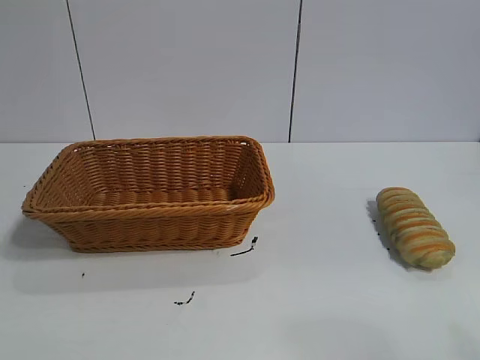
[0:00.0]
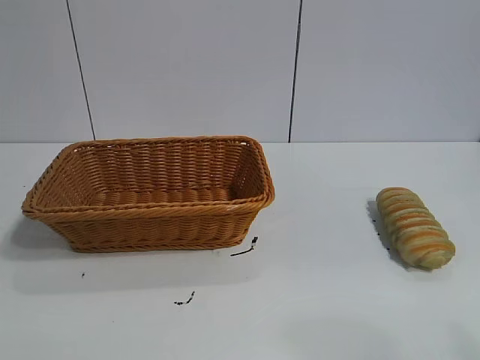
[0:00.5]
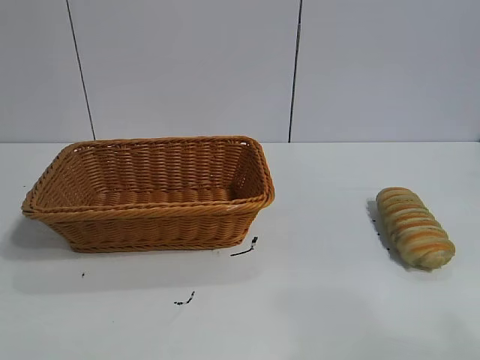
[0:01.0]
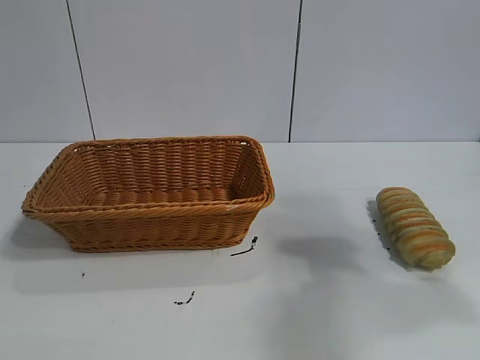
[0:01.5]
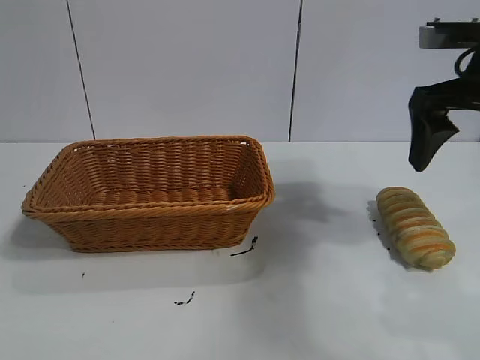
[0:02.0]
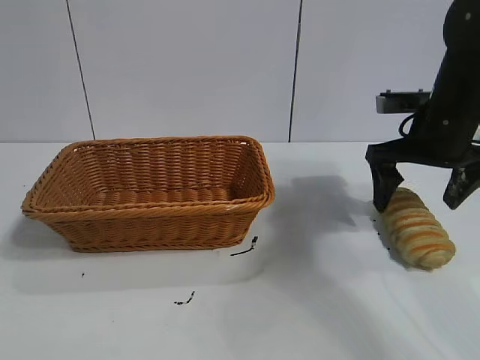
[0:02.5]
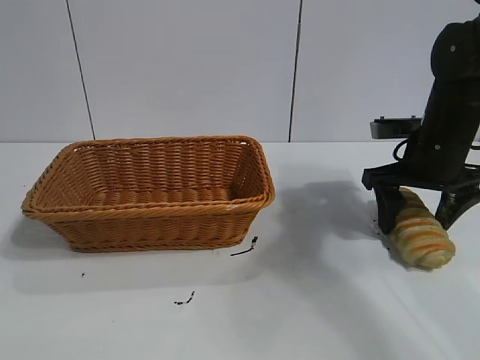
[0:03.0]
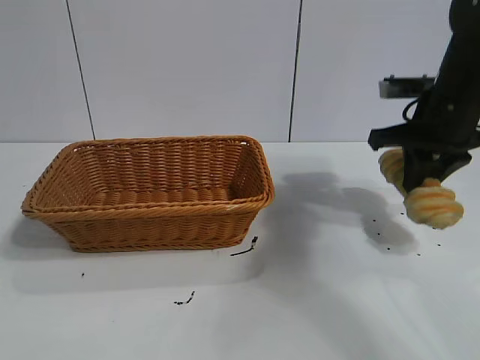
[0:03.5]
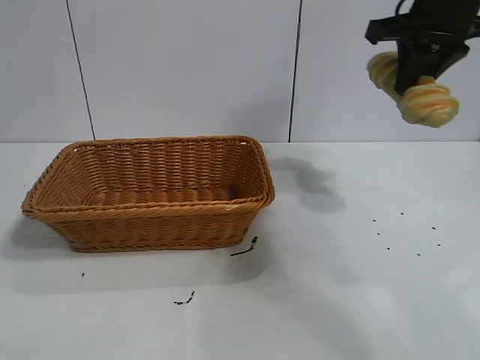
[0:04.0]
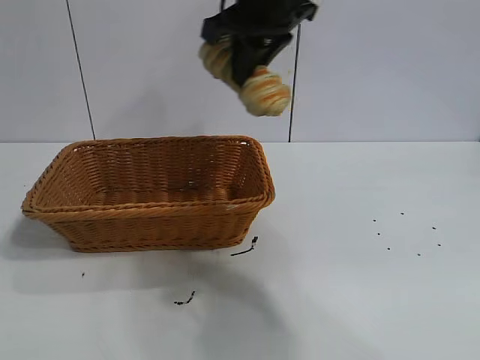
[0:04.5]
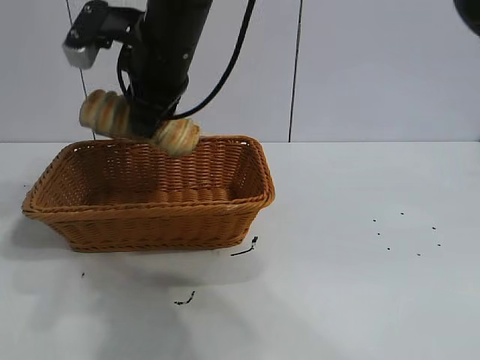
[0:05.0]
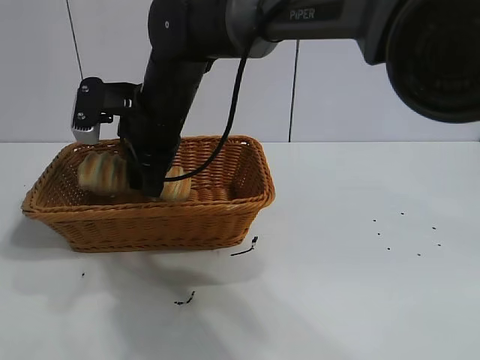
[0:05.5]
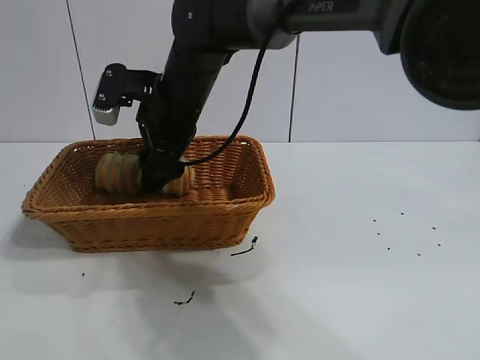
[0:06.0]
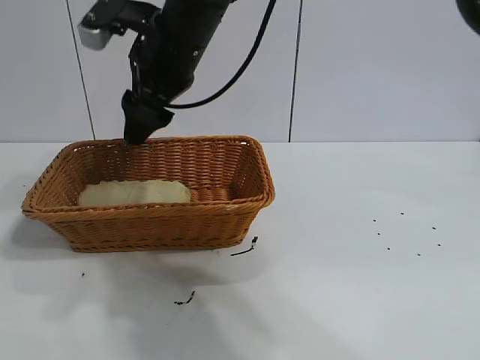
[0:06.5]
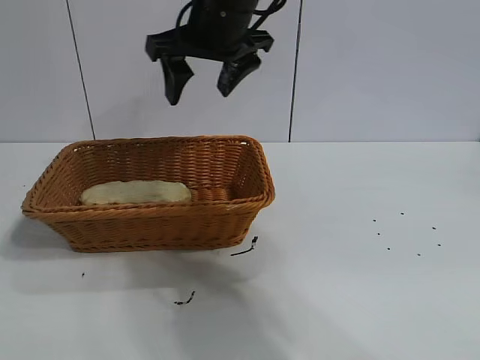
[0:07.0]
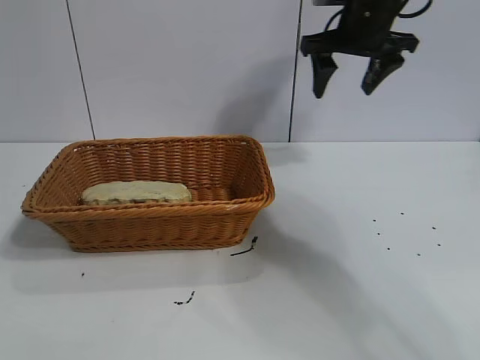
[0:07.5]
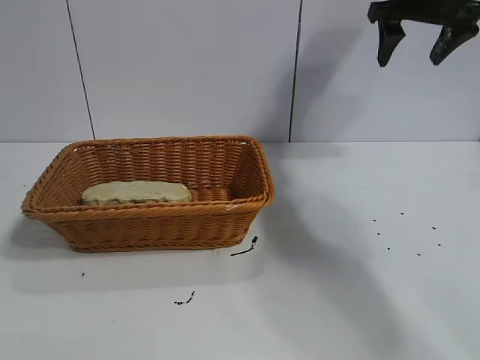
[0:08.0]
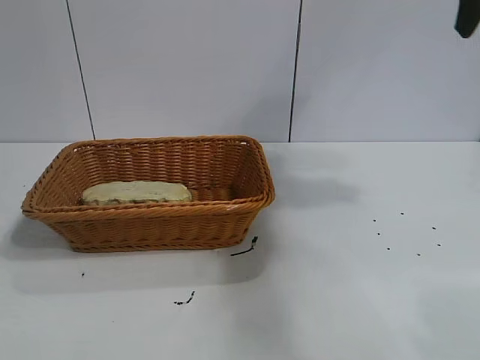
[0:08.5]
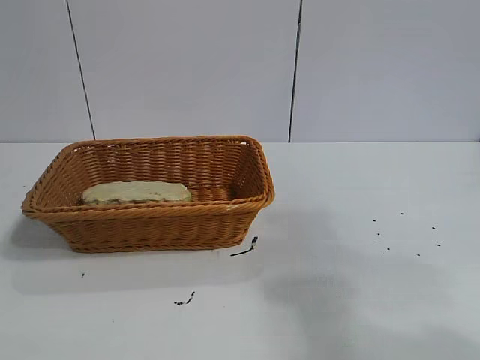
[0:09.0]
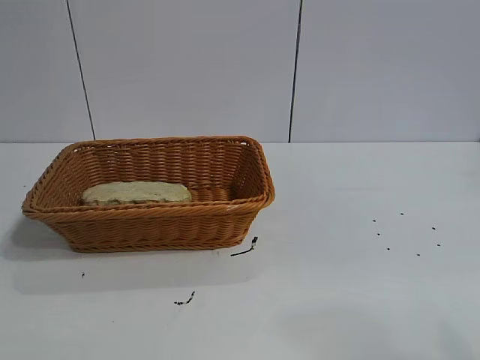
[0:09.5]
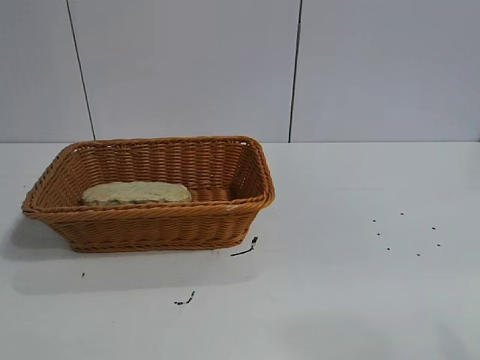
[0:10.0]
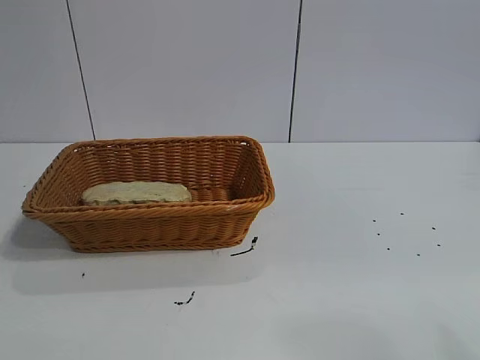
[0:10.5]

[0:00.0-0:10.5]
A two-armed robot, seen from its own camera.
Task of the whole recording: pick up the long bread and put it into the basket.
Step, 0:02.0 to 0:03.0: Grasp the long bread with right gripper.
Step, 0:03.5 to 0:06.5: Place the long bread in the basket with right gripper.

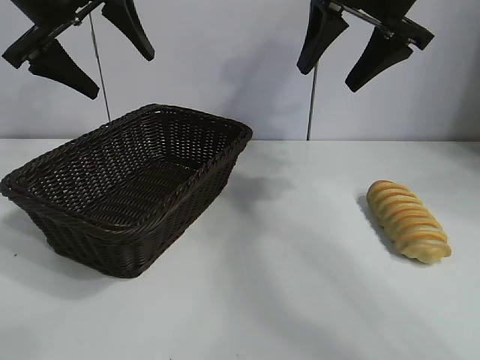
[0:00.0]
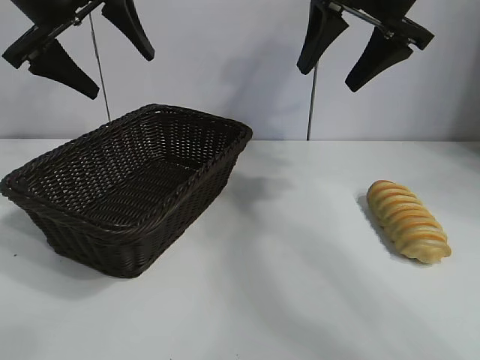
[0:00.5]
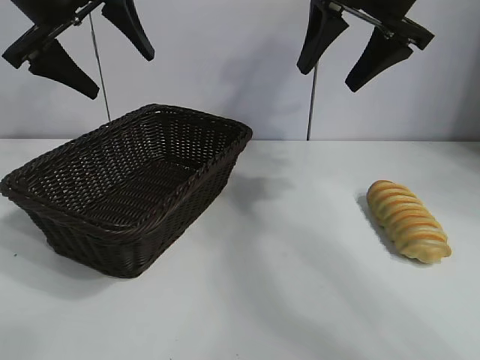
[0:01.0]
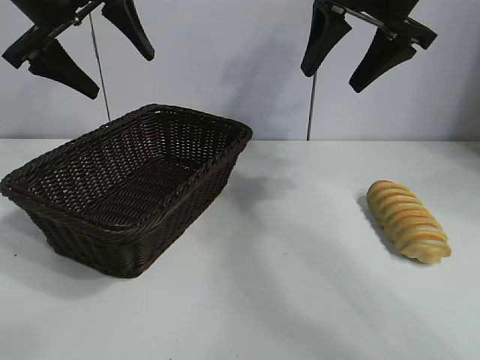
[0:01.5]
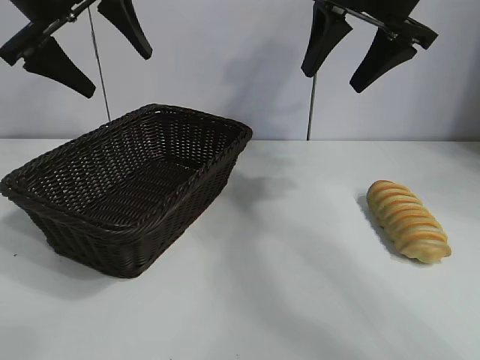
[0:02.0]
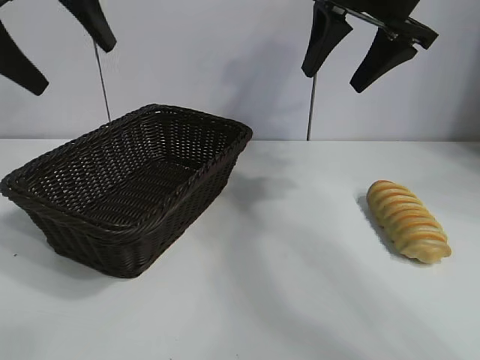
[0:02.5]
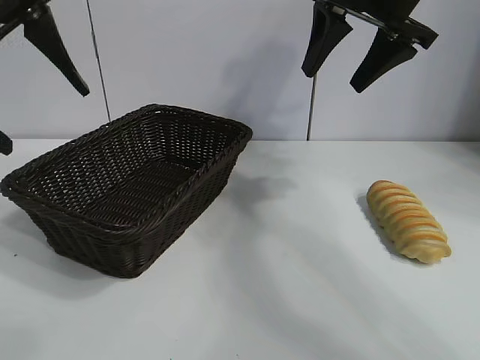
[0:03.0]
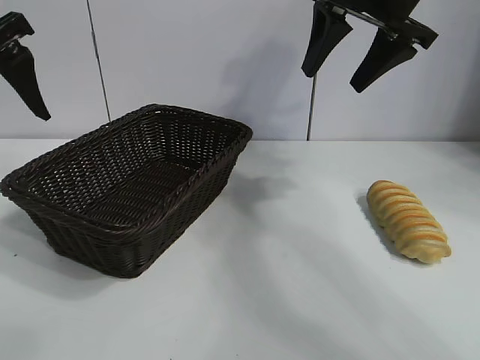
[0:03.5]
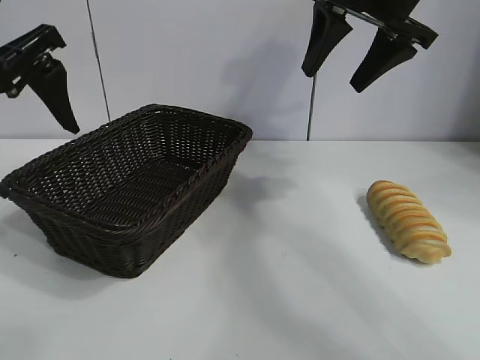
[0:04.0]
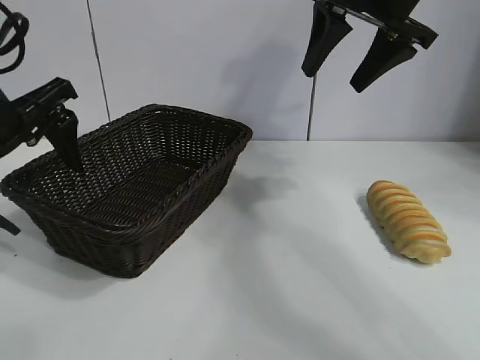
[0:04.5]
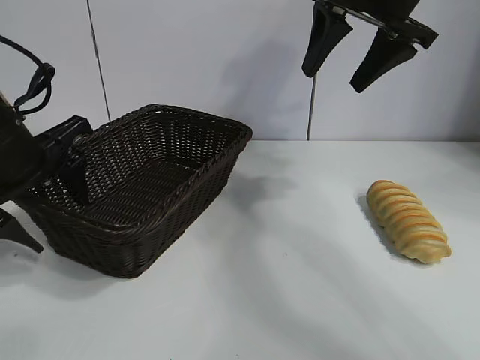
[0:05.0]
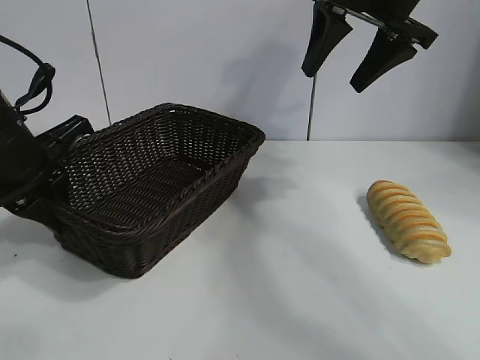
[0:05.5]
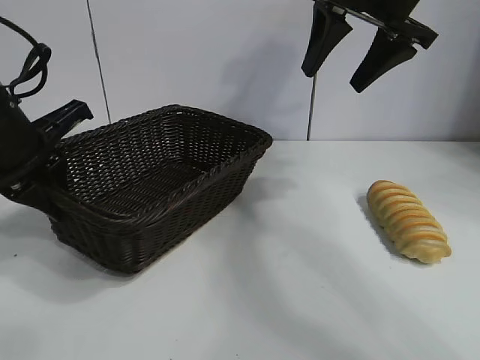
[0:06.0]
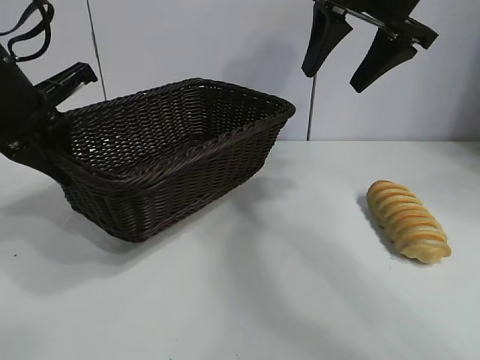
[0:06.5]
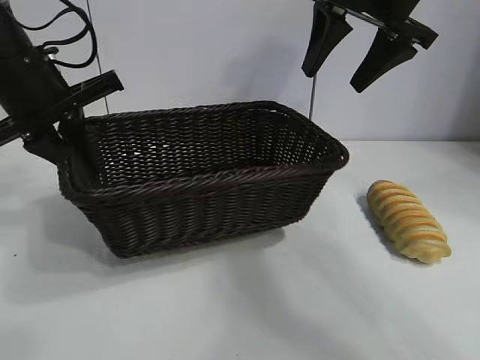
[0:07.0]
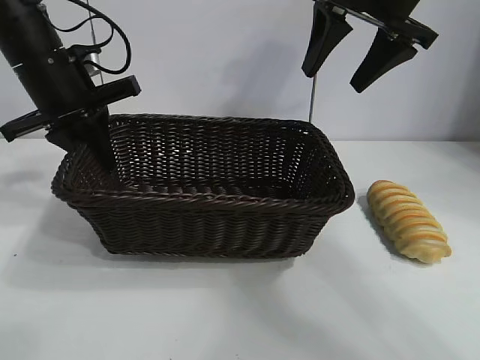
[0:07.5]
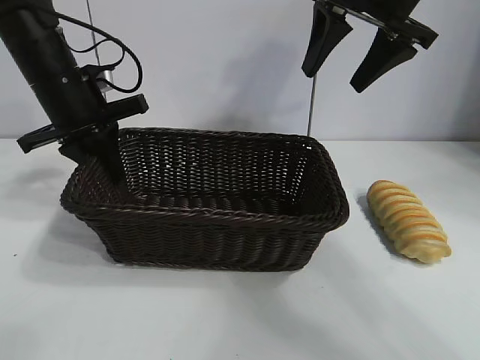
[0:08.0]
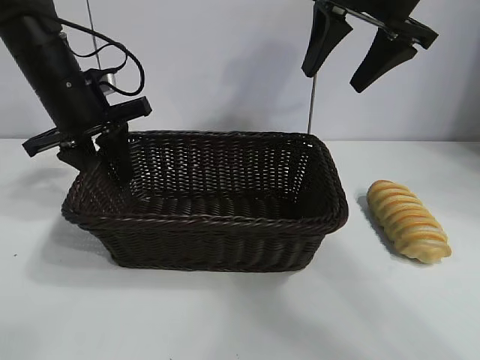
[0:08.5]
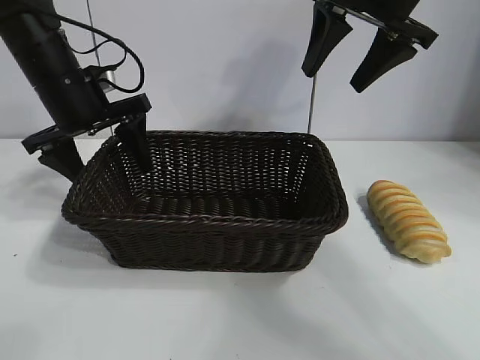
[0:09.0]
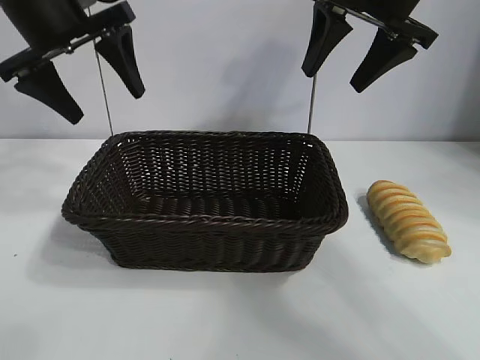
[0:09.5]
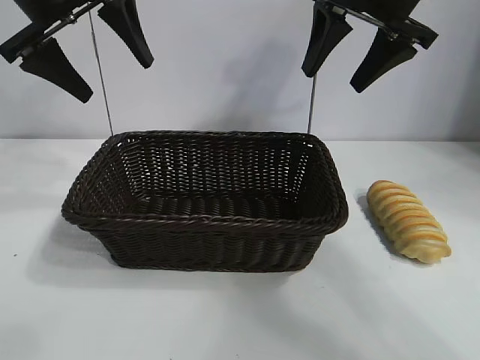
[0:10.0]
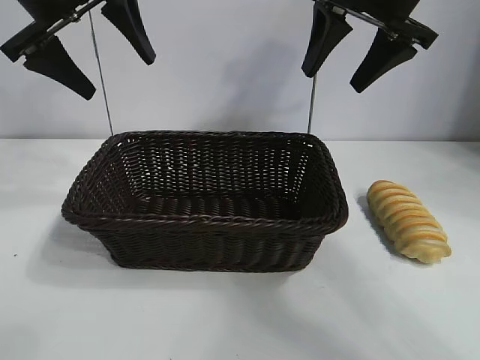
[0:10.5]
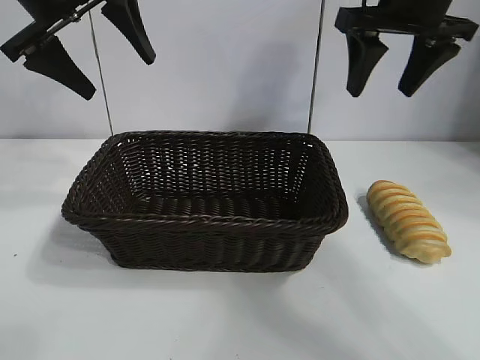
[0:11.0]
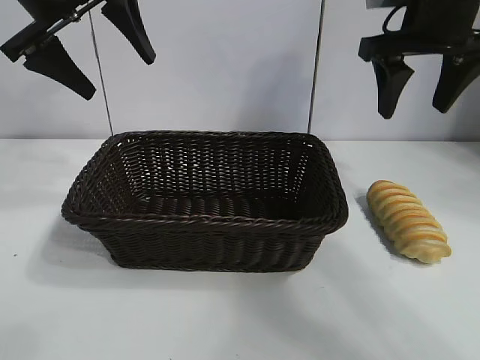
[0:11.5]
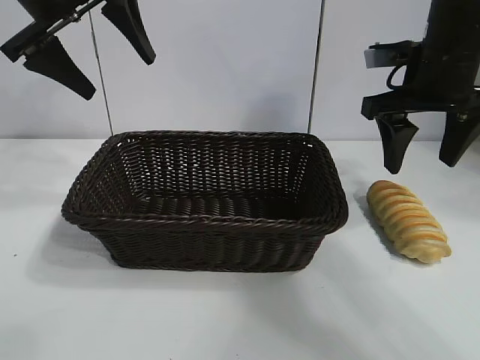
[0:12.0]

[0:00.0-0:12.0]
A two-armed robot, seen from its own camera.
Task of the whole recording: pick up the long bread and put it into the basket.
Step, 0:02.0 to 0:05.5: Grasp the basket with the left gripper.
Step, 0:06.0 to 0:08.5: Place the basket in the center of the table with the left gripper.

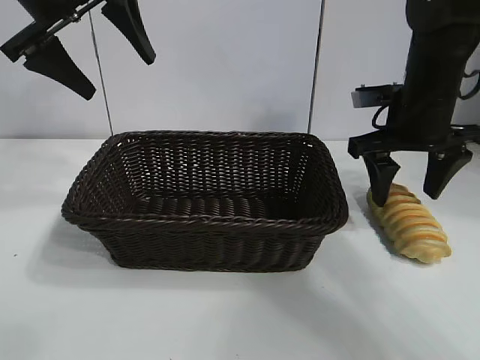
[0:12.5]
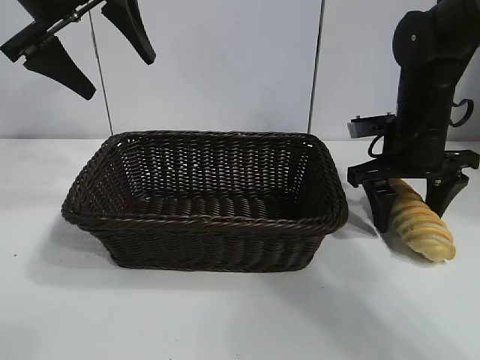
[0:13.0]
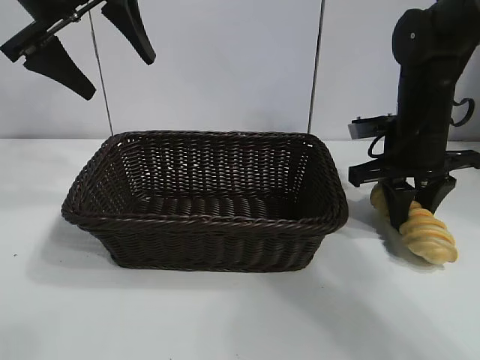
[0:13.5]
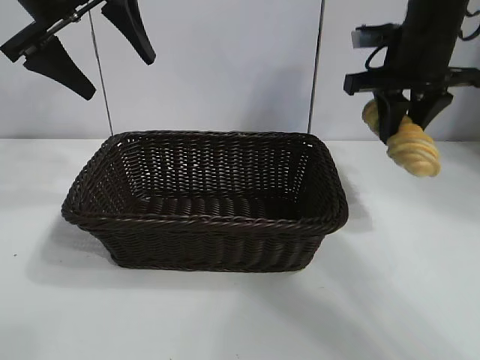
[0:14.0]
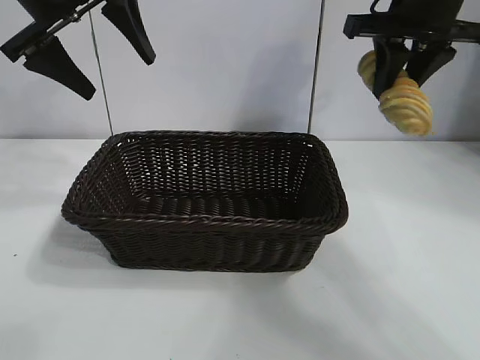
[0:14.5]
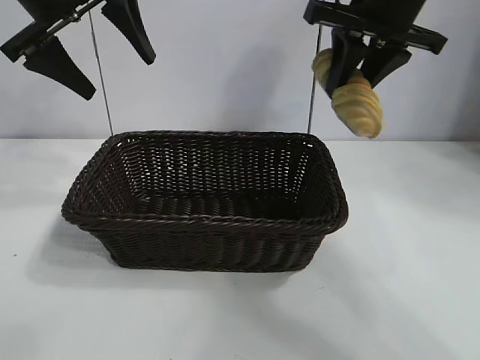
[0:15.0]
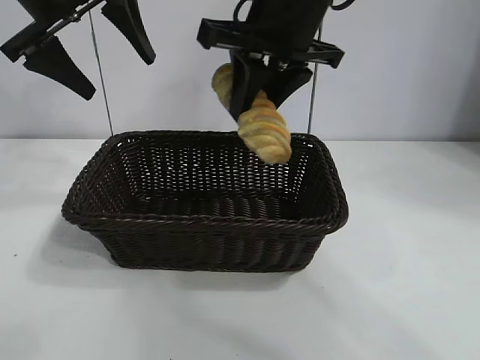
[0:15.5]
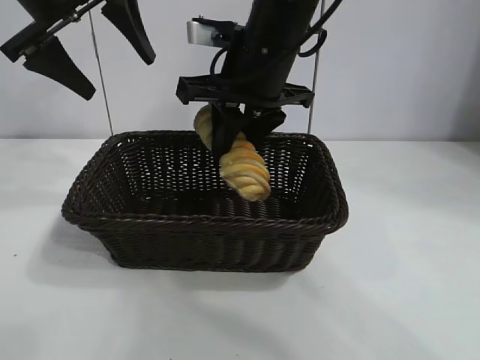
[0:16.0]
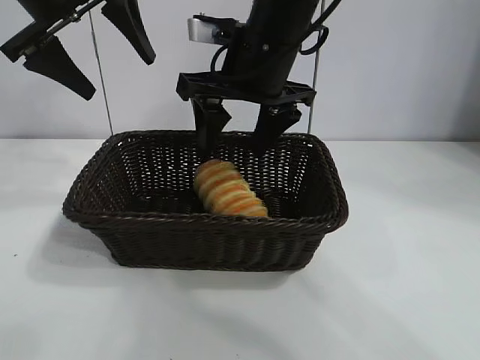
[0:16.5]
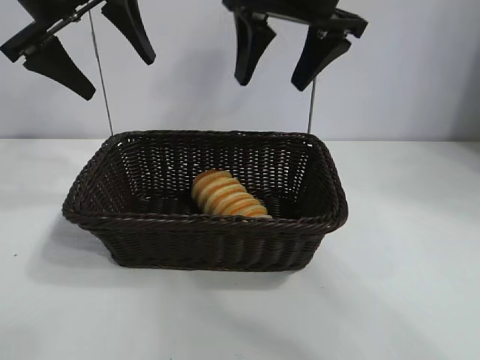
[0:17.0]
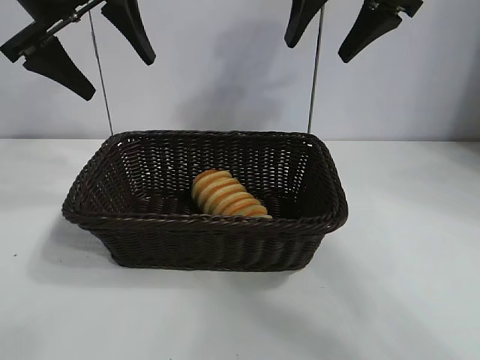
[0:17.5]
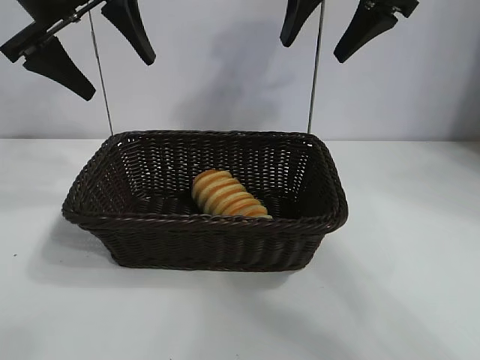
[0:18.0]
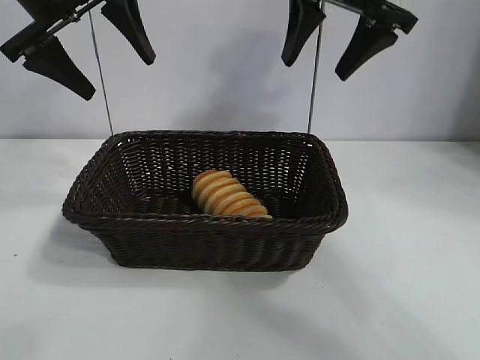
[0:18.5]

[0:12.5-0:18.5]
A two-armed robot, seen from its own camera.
Task of the whole recording: pick up the long bread and put it into the basket.
Step, 0:14.0 to 0:16.5: Place the long bread in the basket with right gripper.
